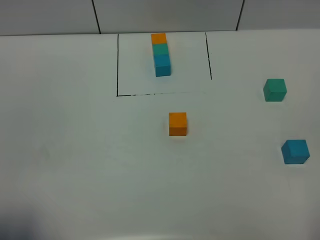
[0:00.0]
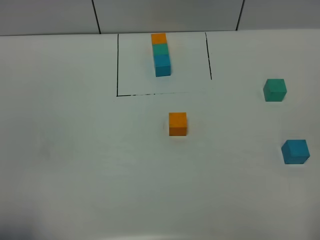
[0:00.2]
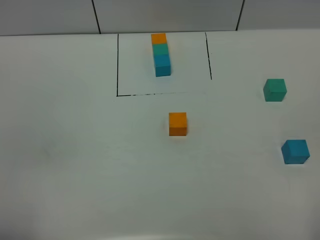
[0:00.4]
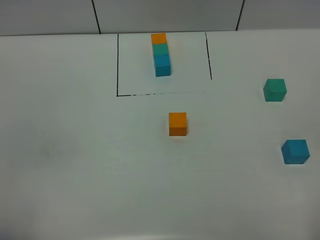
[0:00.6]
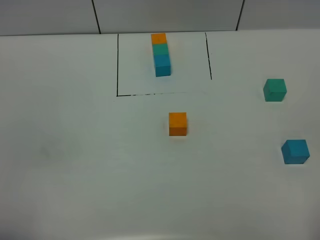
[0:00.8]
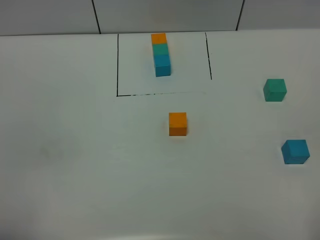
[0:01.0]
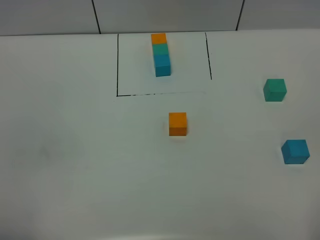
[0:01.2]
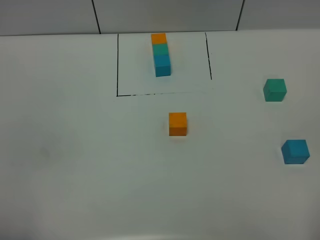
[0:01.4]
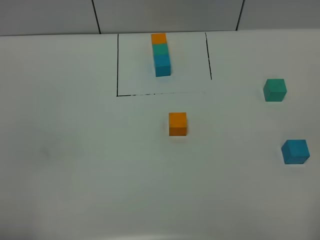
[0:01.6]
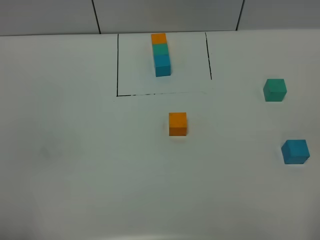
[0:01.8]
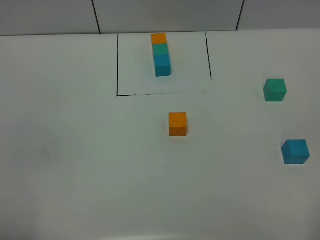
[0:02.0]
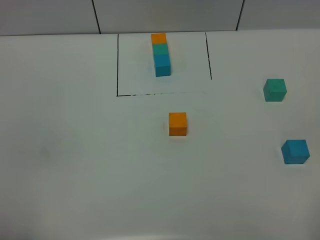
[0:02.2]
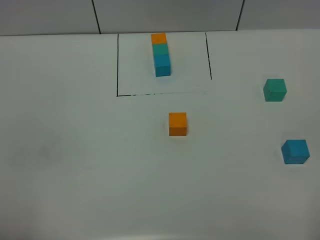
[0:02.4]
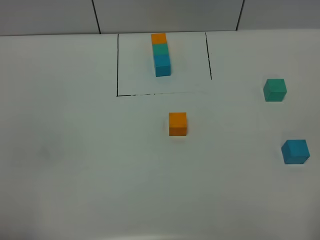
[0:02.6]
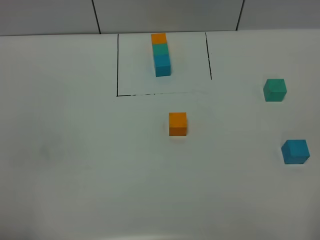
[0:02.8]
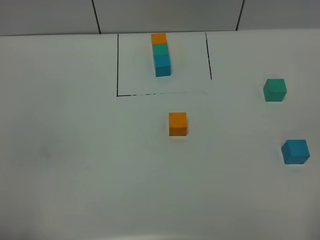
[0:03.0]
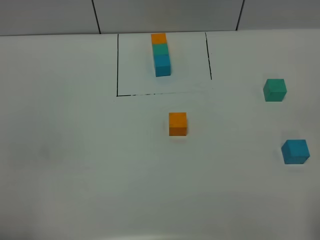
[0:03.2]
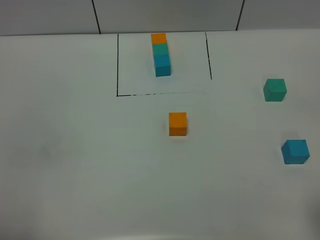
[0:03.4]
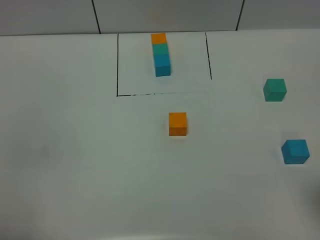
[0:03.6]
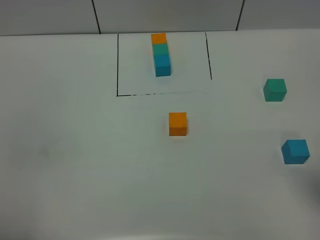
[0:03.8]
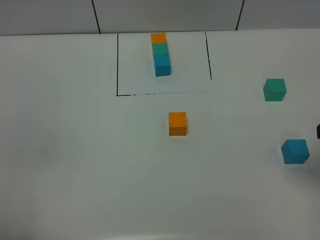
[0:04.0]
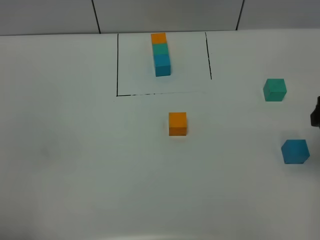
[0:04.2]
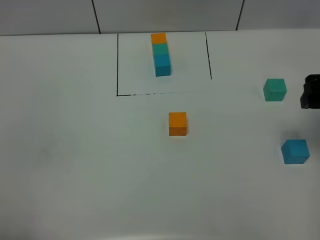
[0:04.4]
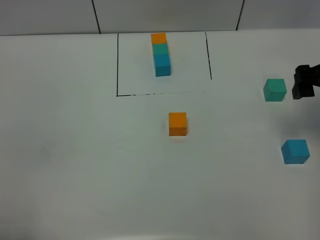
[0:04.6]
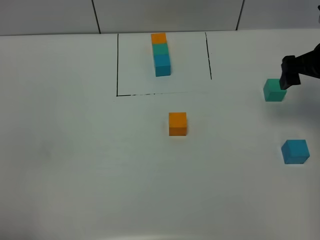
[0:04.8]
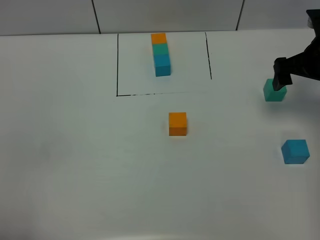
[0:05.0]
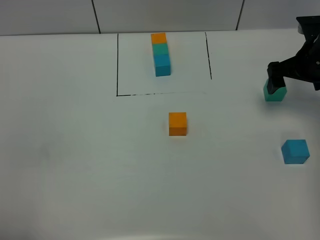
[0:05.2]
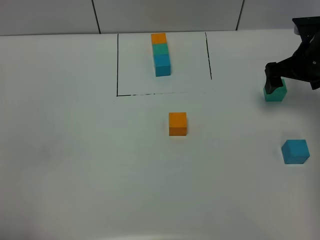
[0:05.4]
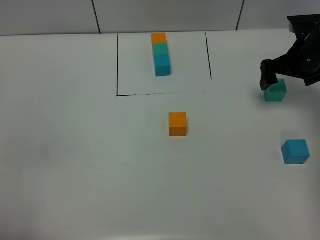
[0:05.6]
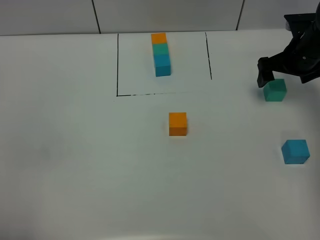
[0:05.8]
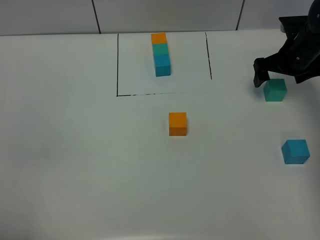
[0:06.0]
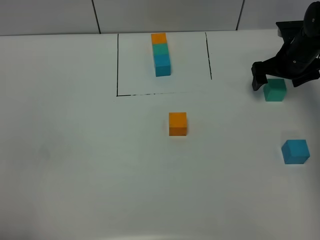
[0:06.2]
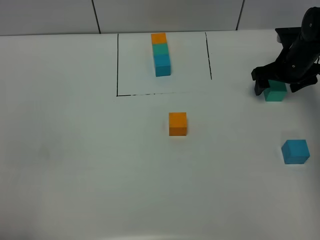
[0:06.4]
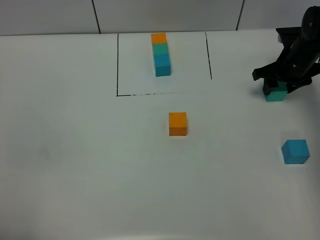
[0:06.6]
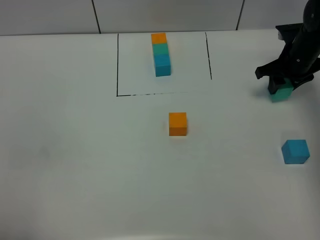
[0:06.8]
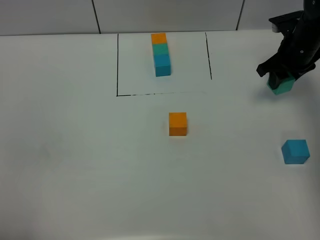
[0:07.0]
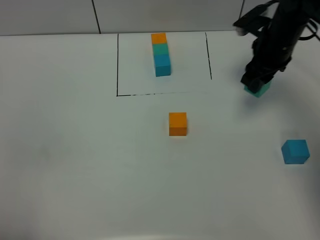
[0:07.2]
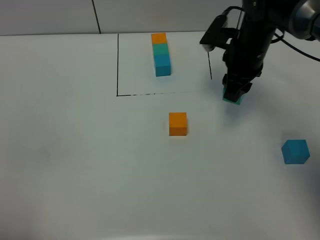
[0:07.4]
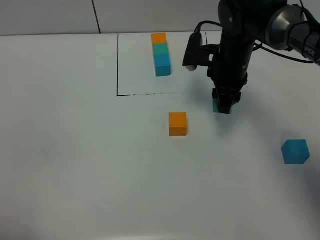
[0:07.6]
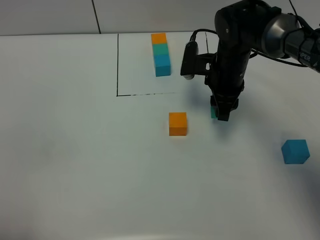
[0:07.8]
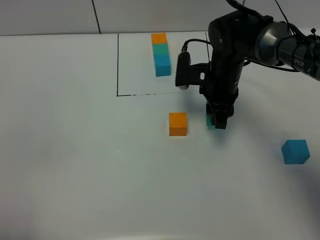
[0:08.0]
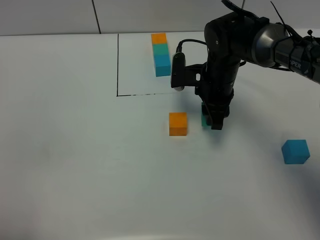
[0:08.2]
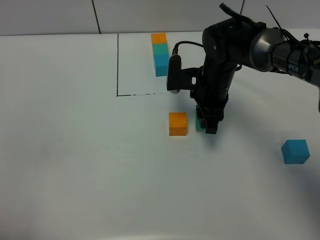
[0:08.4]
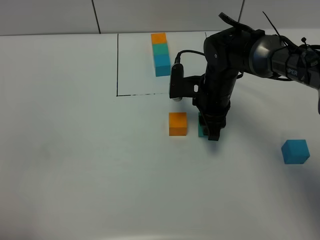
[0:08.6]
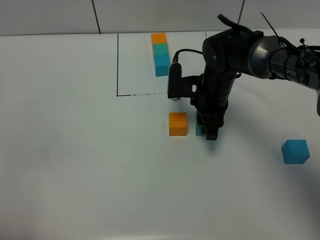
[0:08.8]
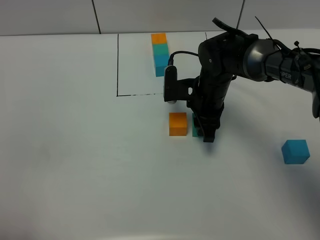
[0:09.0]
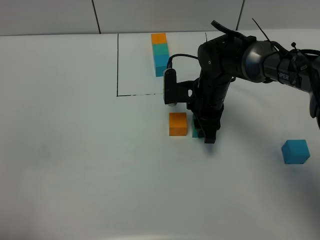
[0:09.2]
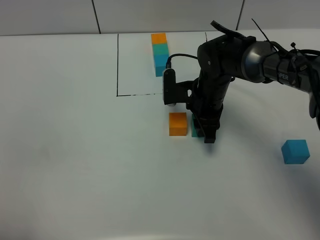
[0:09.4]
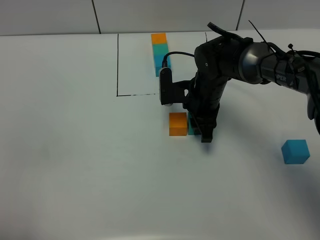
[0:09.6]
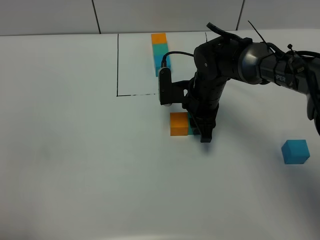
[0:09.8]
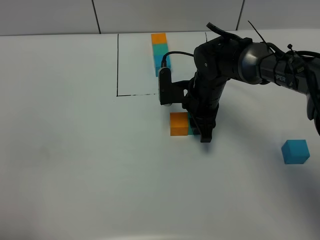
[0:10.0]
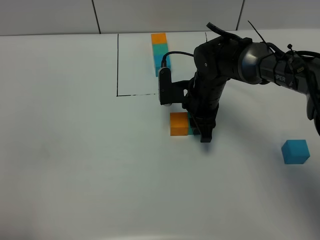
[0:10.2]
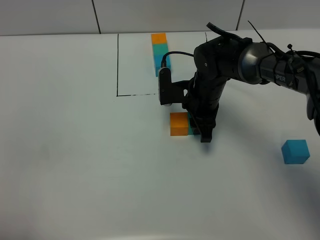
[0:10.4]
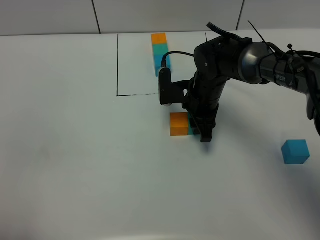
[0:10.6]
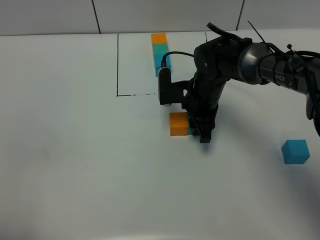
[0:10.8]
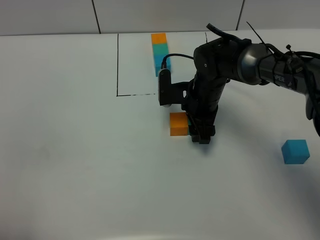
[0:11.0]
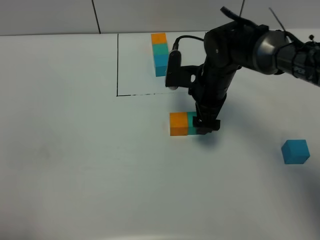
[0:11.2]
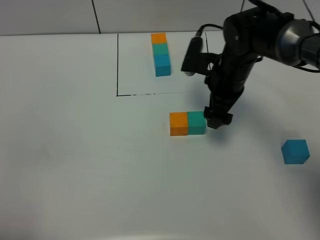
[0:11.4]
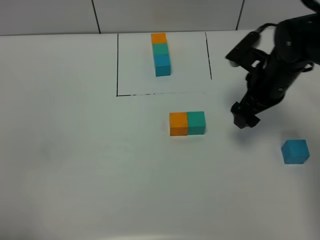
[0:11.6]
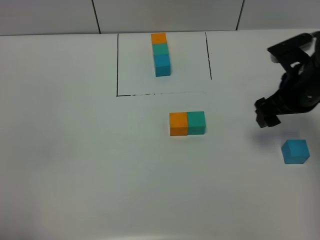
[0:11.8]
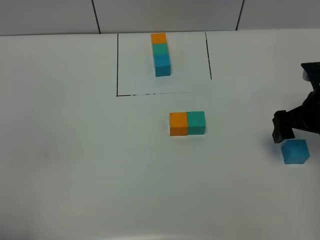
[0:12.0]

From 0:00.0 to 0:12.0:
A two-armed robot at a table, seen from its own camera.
Task of the whole recording: According to the building block template in front, assemble the scattered blocks together.
Step, from 0:00.0 to 0:11.0: Put the green build block on the right of the orange build block.
From 0:01.6 to 0:03.0: Both grippers stay put.
From 0:03.0 to 0:04.4: The right gripper shifts approximately 30 cm forward.
From 0:04.4 to 0:06.0: The right gripper travels forward and downward by roughly 20 cm.
From 0:06.0 to 0:07.6: The right gripper is displaced to the left by about 15 cm, and closes up.
From 0:07.6 to 0:09.0: The right gripper moves downward, some 5 cm.
From 0:09.0 to 0:10.4: Both grippers stay put.
From 0:10.4 to 0:12.0: The right gripper is displaced to the right by roughly 20 cm, and opens up.

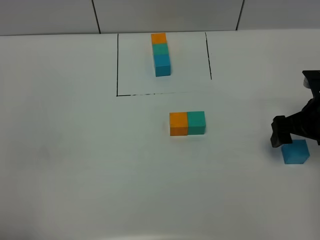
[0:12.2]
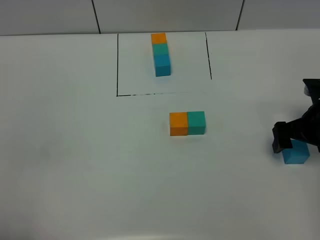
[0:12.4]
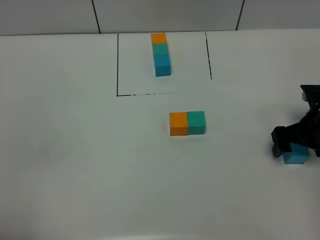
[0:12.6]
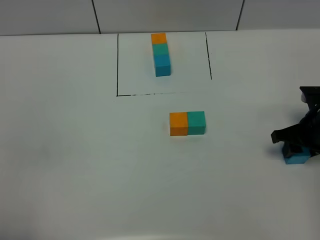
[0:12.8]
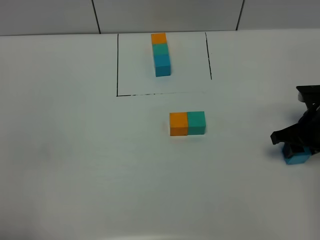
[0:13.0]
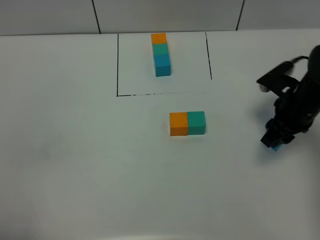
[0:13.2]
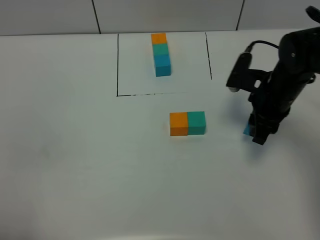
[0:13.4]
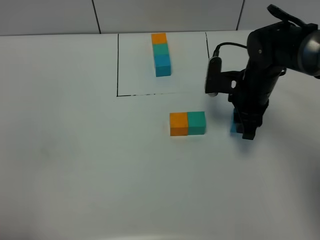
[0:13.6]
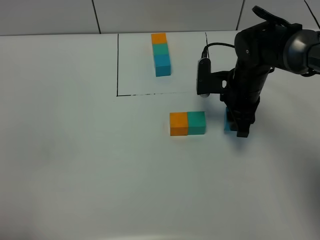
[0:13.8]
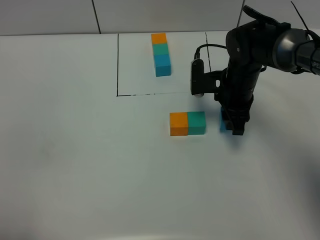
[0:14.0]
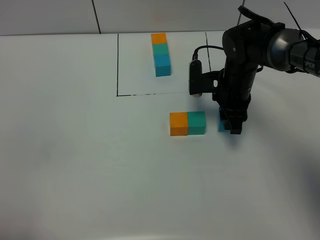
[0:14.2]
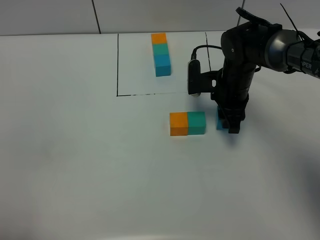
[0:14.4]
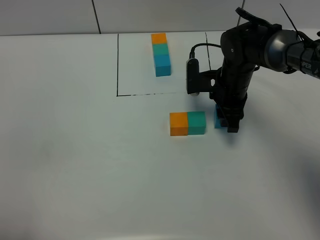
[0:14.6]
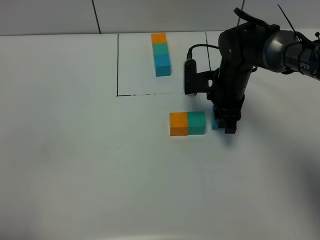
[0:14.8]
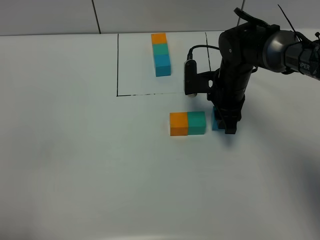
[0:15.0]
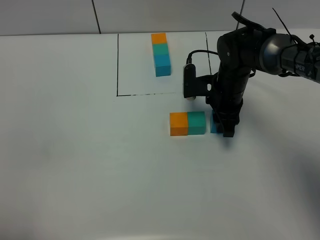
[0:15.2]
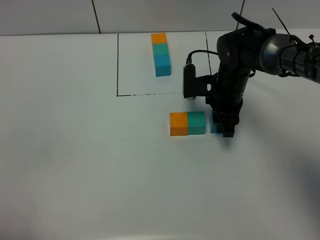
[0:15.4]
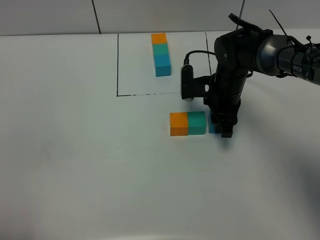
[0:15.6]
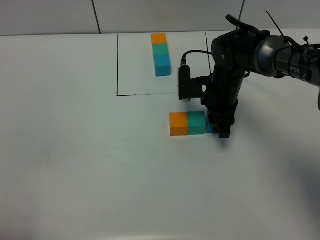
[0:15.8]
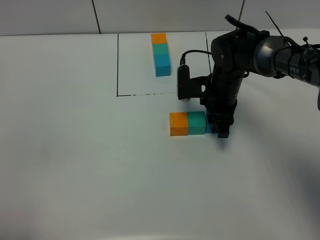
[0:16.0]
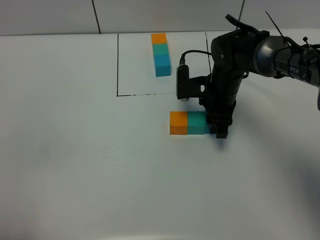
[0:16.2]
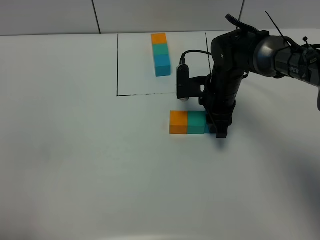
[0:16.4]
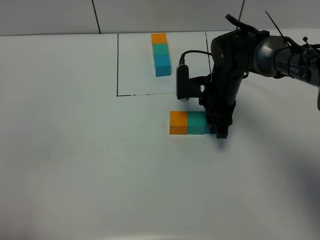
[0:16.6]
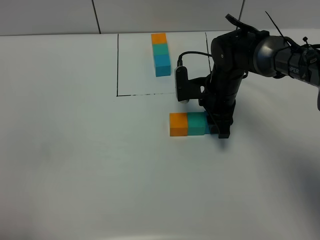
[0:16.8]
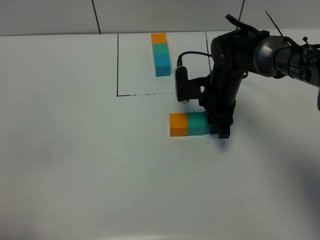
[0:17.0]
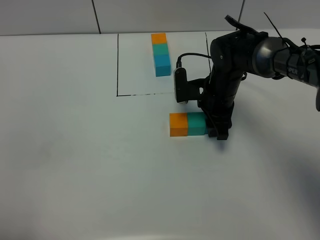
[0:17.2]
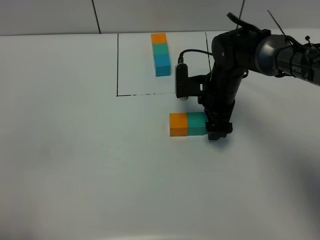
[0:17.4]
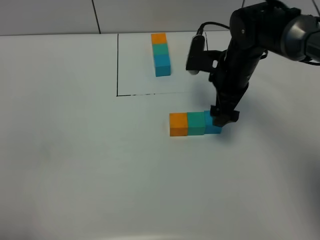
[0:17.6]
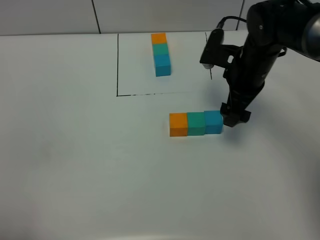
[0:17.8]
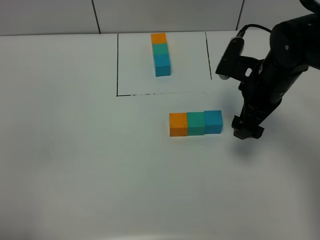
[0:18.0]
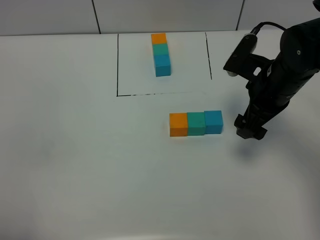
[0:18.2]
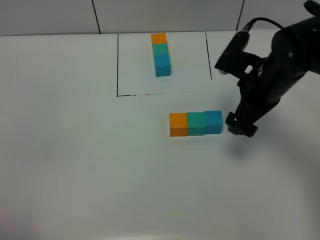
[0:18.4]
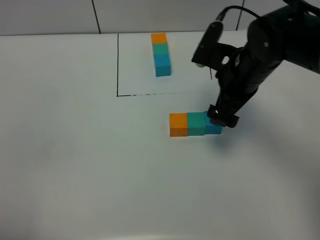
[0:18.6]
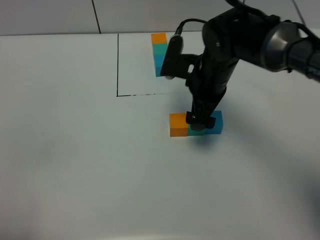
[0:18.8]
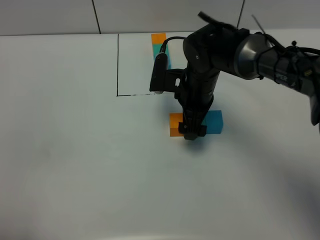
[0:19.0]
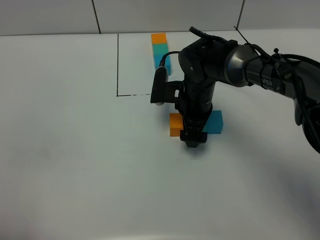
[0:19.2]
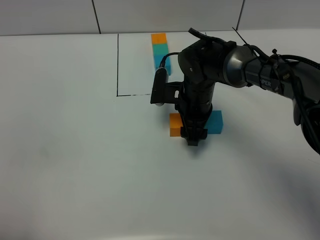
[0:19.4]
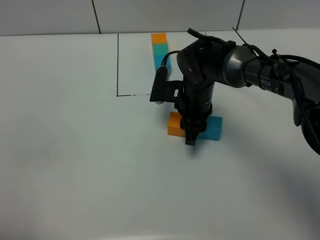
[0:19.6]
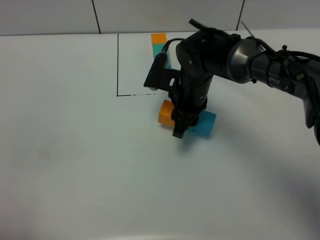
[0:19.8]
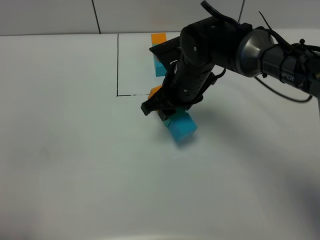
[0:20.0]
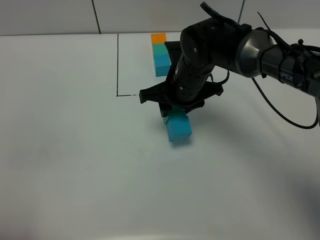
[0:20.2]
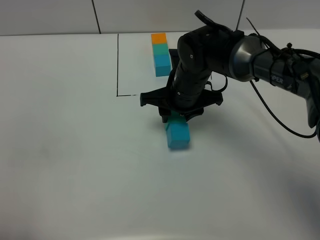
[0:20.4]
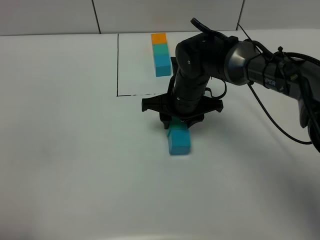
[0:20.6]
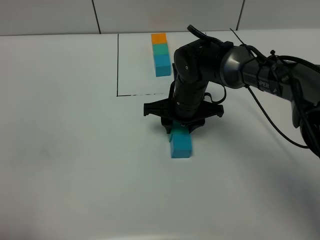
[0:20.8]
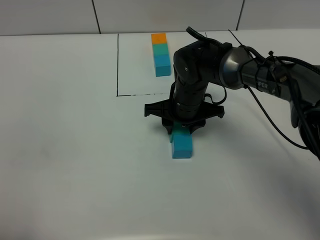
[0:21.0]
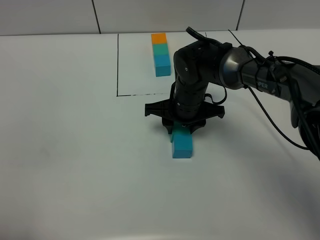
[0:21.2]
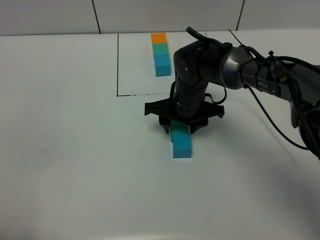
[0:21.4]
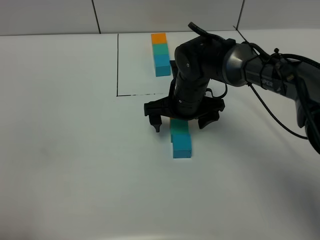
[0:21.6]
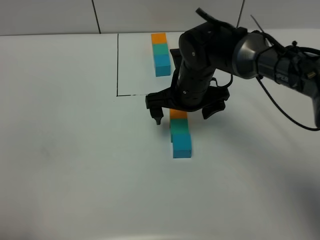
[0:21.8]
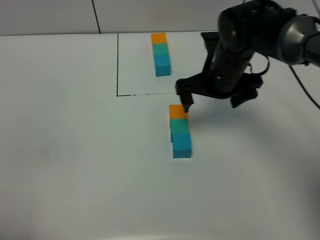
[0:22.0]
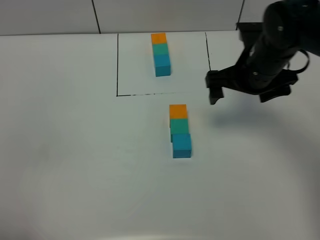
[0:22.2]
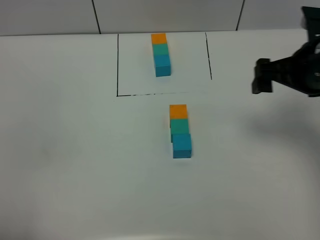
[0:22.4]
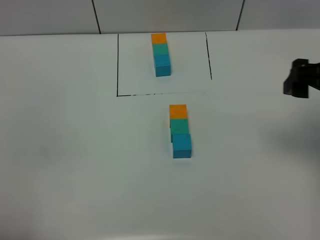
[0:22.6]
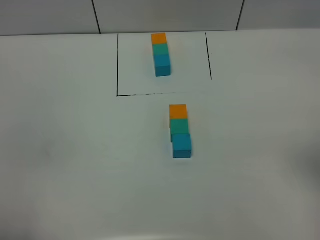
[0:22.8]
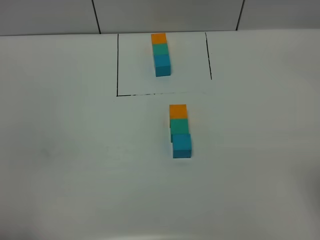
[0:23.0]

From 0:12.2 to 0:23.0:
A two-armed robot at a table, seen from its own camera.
Task of the whole recording: According to the building block template in front, assemble the scattered blocks together.
Step, from 0:12.2 to 0:17.4: Put the blue build block on the right of the green build block.
Step, from 0:17.6 to 0:21.6: move the build block to the center of the table.
From 0:12.2 to 0:13.8: The right gripper travels to the left and forward by roughly 15 cm, and closes.
From 0:13.8 to 0:16.8: The grippers move only a little.
From 0:16.8 to 0:18.4: The right gripper heads upward and backward, covering approximately 10 cm, and opens up.
From 0:18.4 to 0:20.0: The right gripper travels to the left by some 10 cm, and closes its fingers.
From 0:20.0 to 0:21.4: The right gripper heads downward, covering roughly 5 cm.
From 0:21.4 to 0:23.0: The right gripper travels to the right, backward and upward by approximately 40 cm, and opens up.
